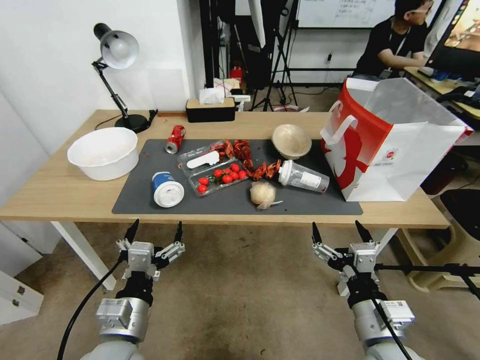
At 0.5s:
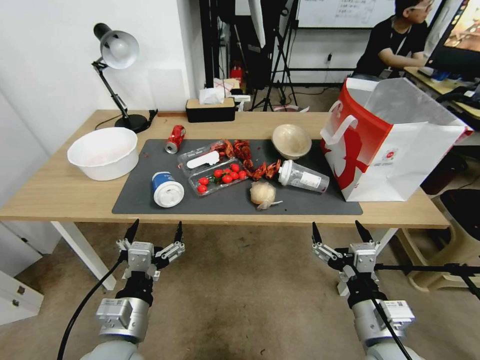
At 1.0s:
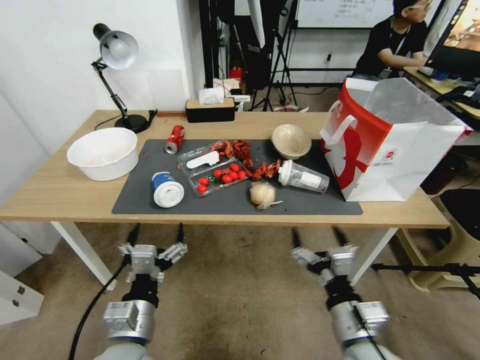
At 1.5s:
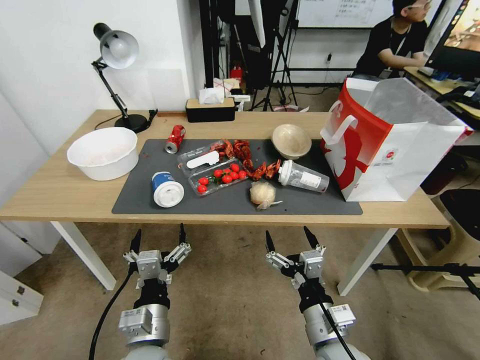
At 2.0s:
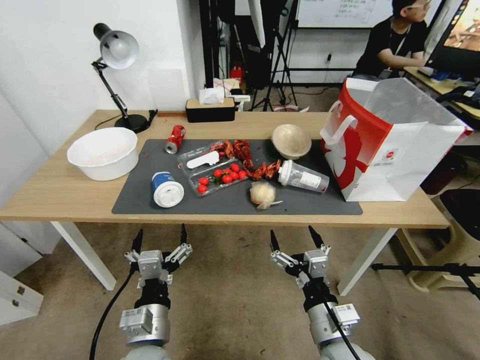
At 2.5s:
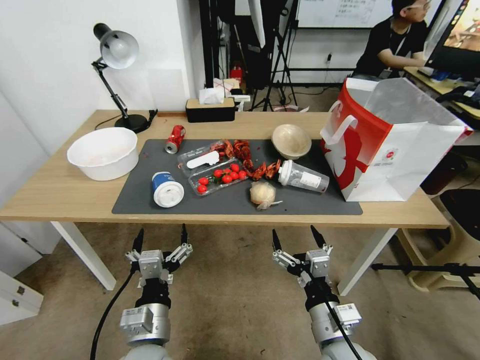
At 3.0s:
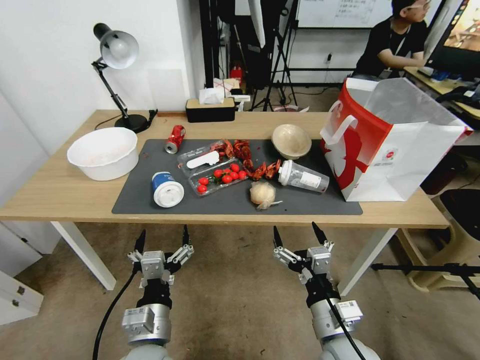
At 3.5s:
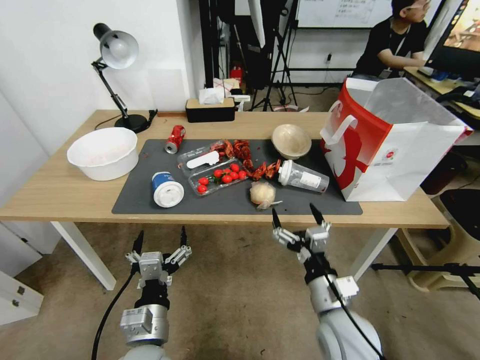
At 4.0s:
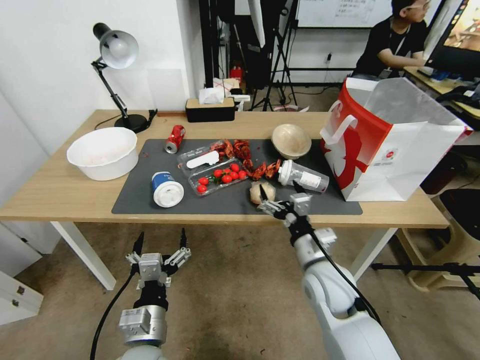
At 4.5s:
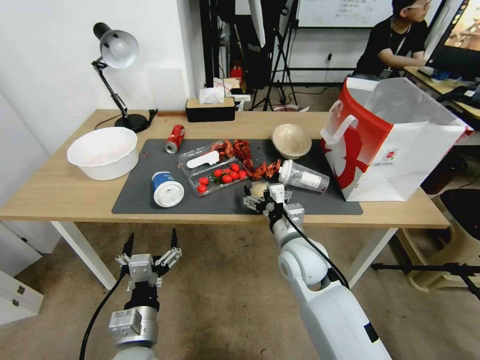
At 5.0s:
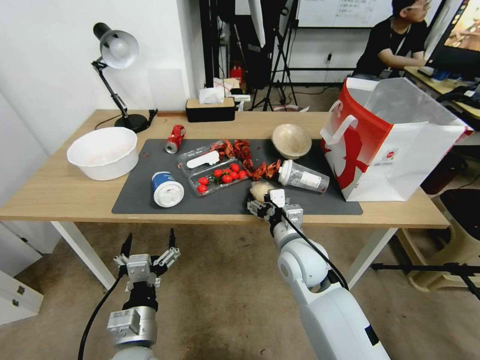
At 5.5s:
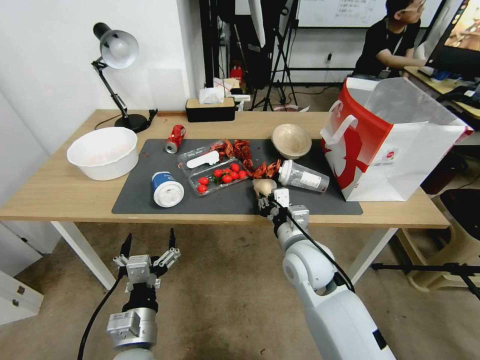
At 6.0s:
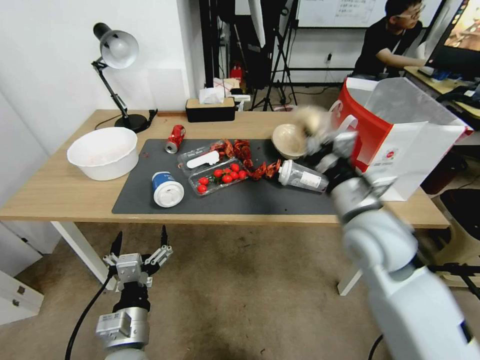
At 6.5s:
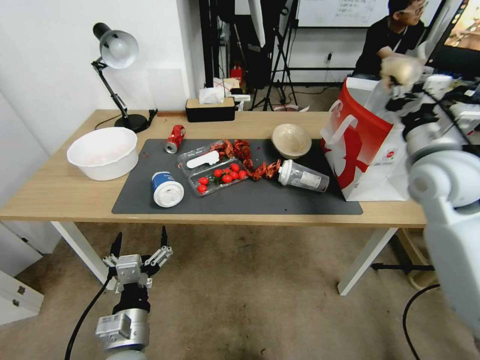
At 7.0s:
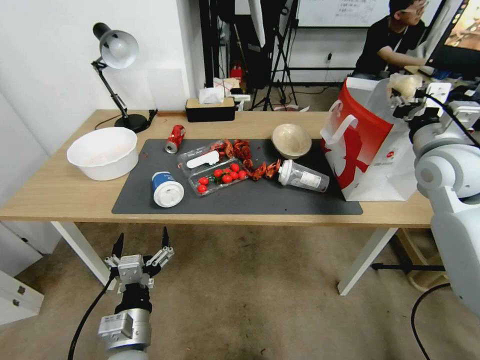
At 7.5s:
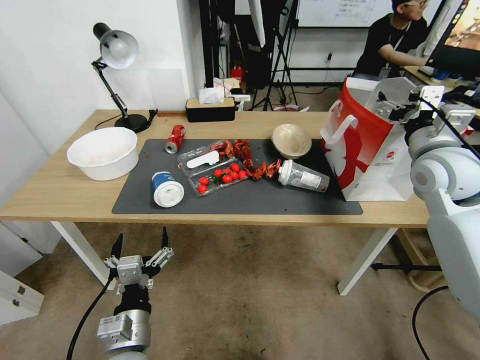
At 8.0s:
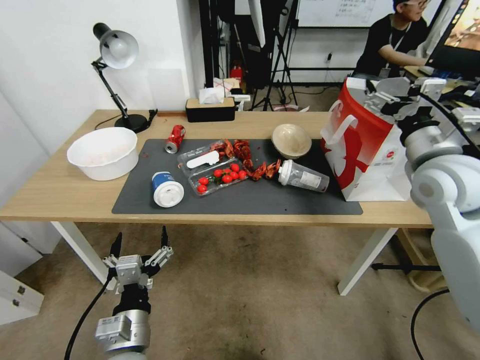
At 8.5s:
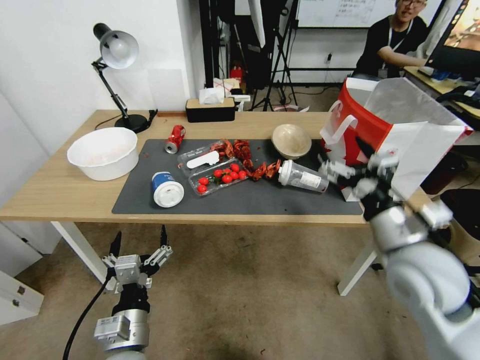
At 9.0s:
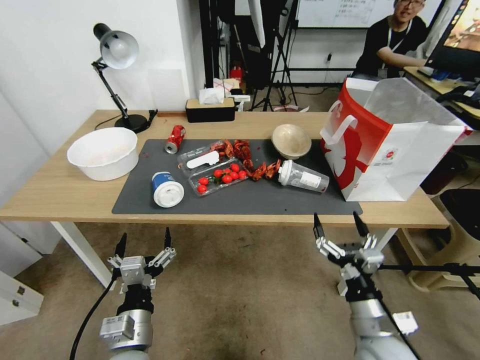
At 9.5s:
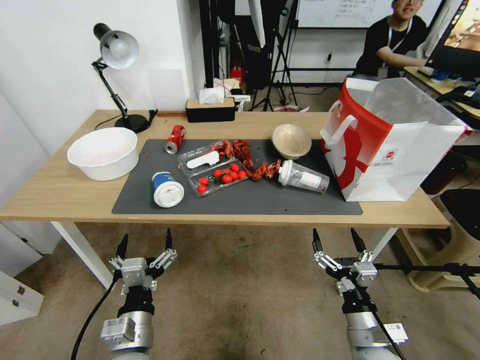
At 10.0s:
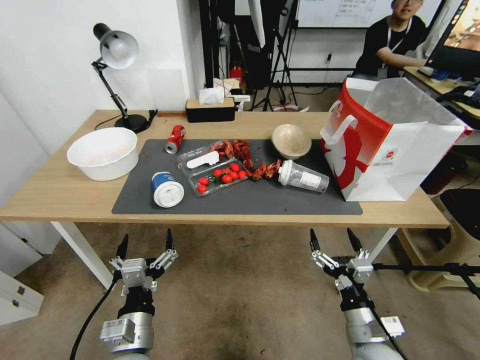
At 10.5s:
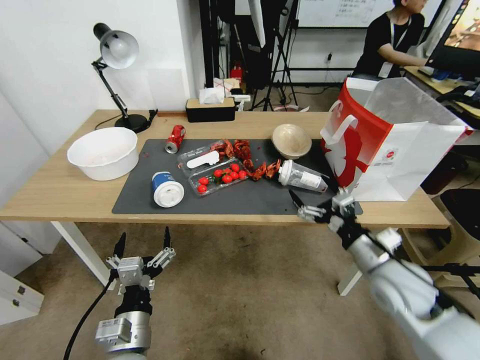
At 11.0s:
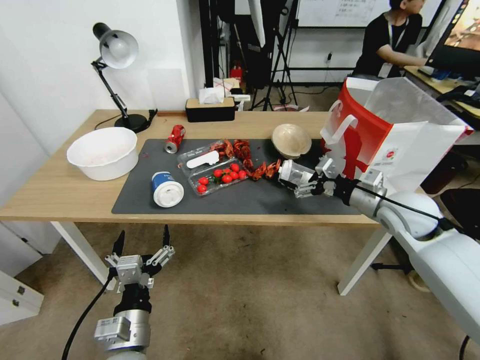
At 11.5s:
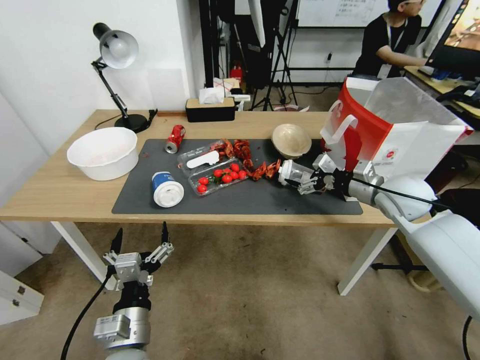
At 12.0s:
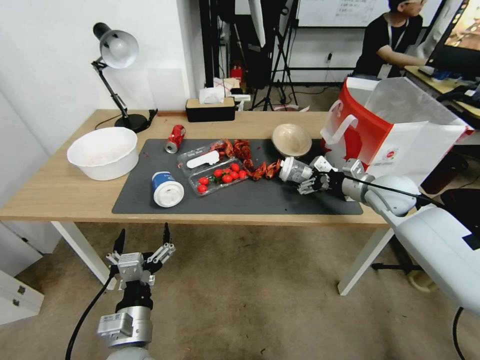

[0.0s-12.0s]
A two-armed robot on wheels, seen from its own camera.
2.0s to 4.0s: The right gripper is displaced forward by approximately 10 cm.
4.0s to 6.0s: The right gripper heads upward, covering approximately 15 cm, and closes its fingers.
6.0s to 8.0s: The right gripper moves to the right, upward and forward, about 15 cm, and opens up.
8.0s to 10.0s: The right gripper moves downward and backward, some 35 cm.
10.0s to 12.0s: The right gripper moves forward and upward, roughly 35 cm.

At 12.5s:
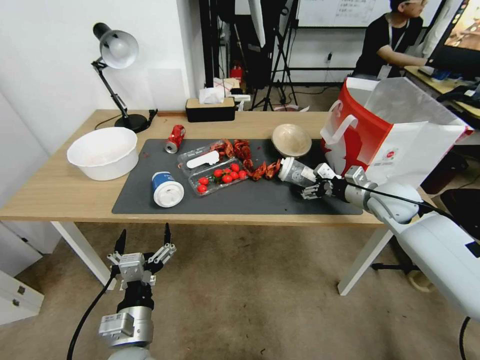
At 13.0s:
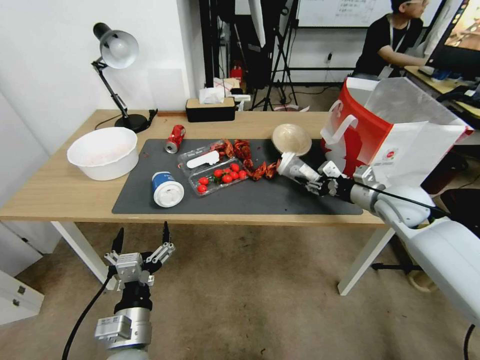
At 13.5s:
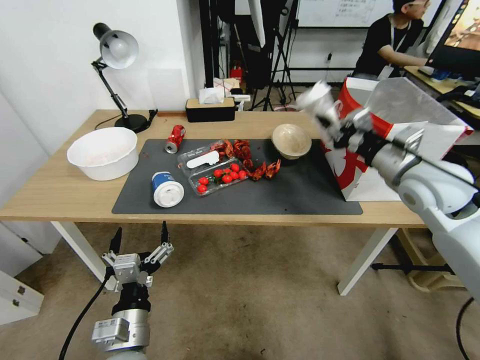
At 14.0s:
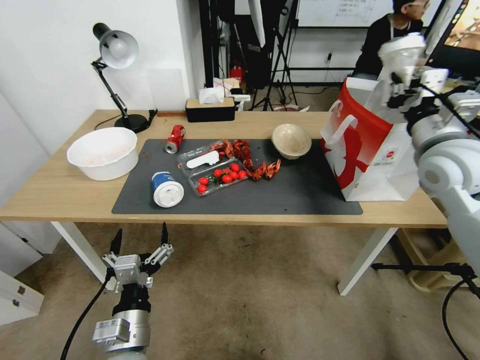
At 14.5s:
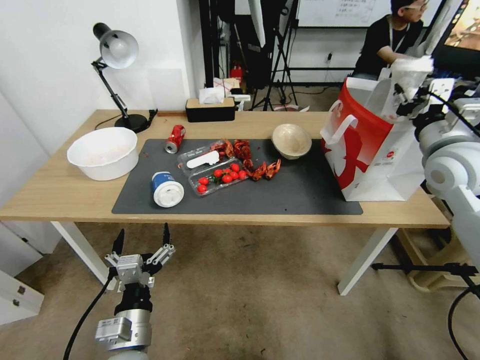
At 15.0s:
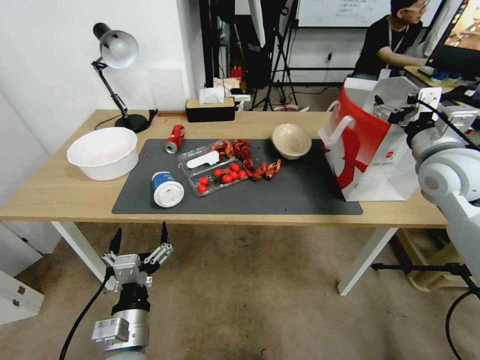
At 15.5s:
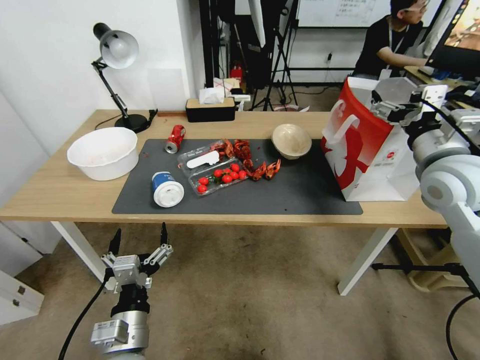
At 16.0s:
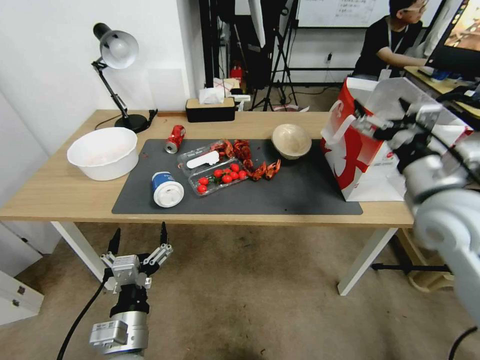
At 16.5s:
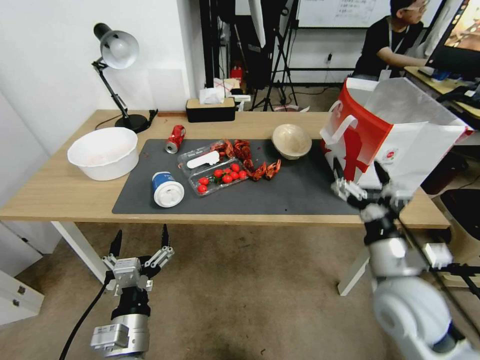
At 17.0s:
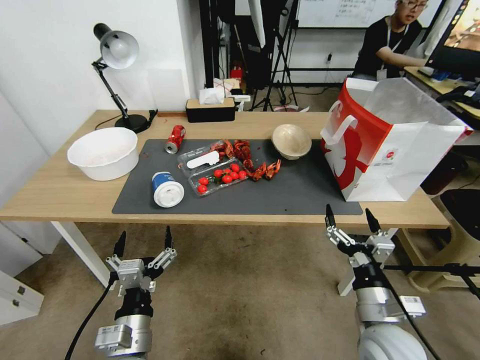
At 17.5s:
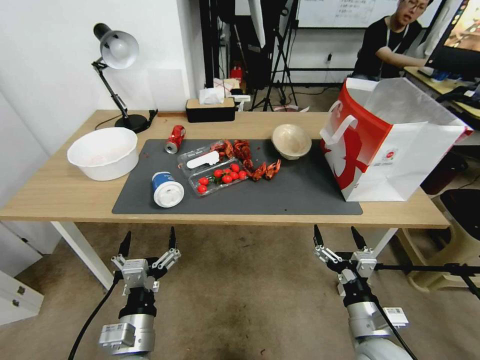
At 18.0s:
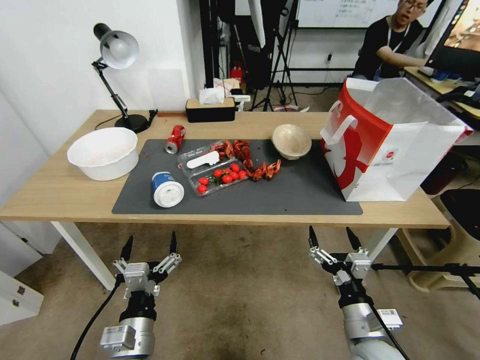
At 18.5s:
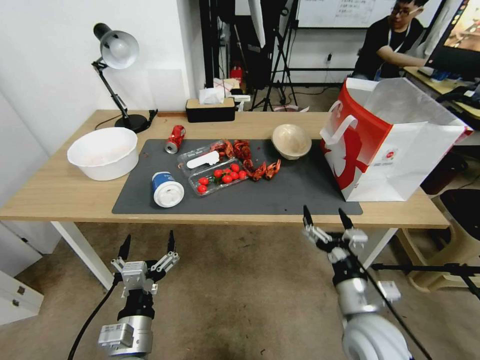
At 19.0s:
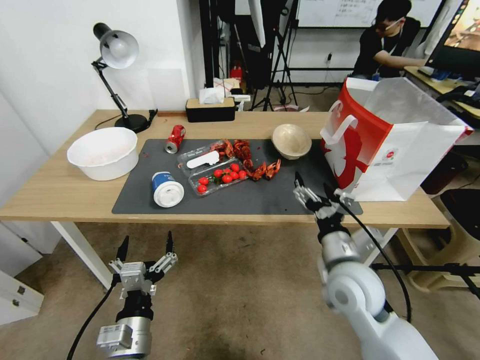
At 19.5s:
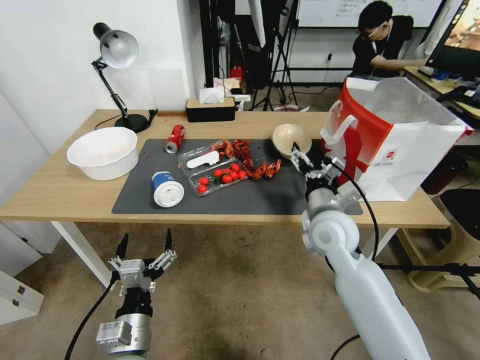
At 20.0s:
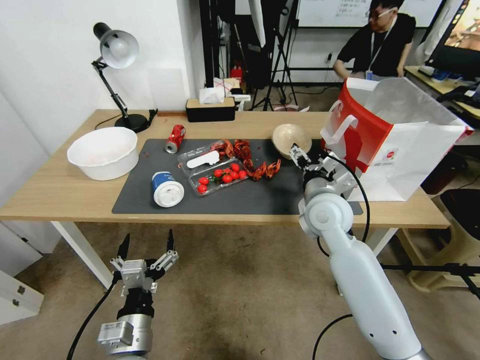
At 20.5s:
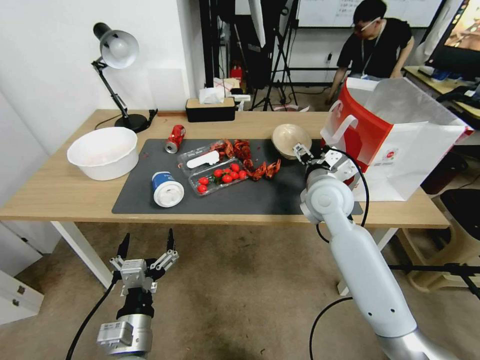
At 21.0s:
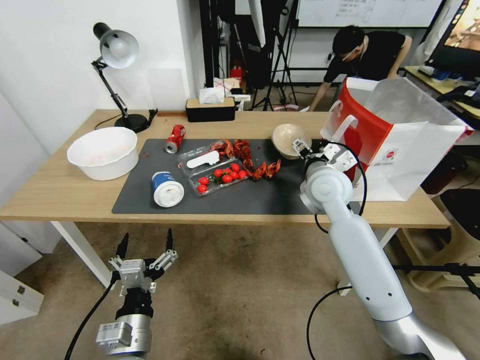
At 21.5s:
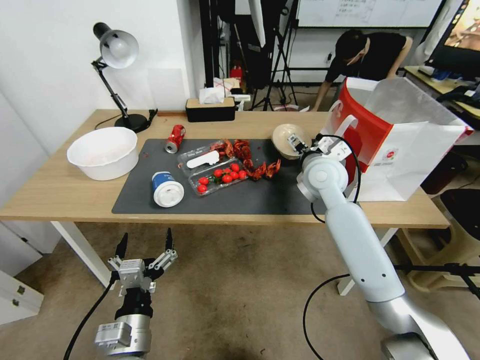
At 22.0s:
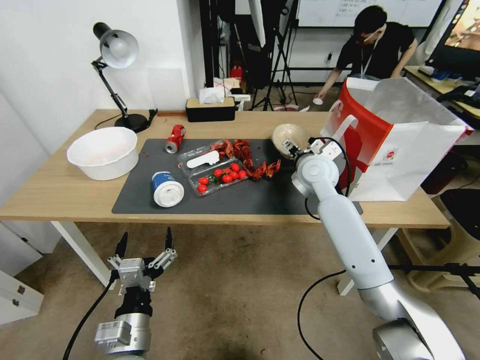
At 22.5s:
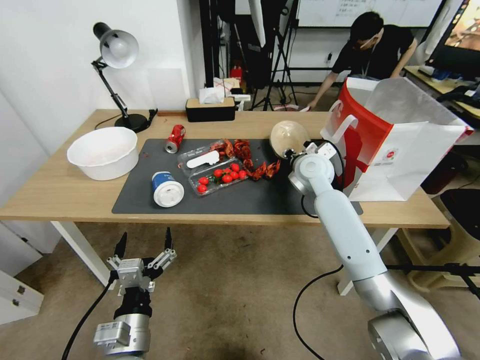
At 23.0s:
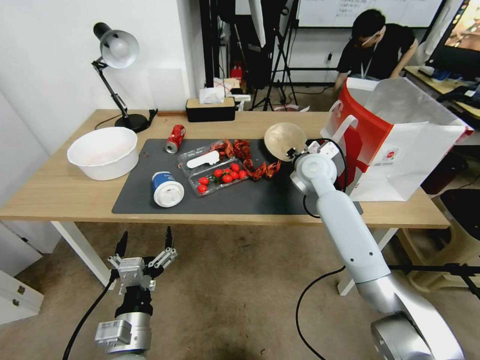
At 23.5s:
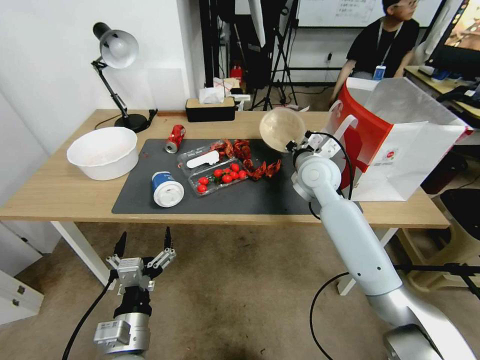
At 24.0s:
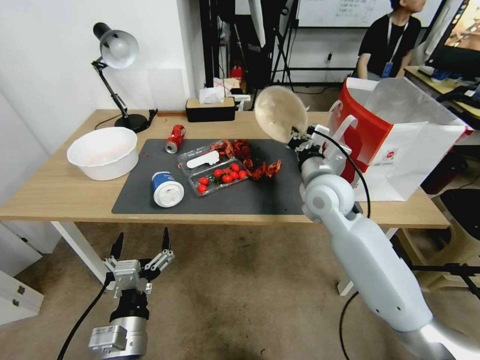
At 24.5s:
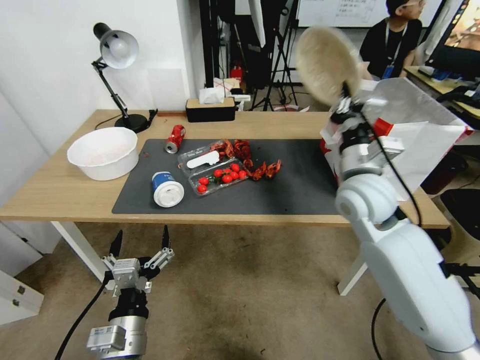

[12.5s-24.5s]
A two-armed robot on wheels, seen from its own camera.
12.5s to 14.5s: The right gripper moves upward, some 15 cm, and closes its fingers.
14.5s to 16.5s: The right gripper heads backward, downward and to the left, covering about 25 cm, and opens up.
16.5s to 18.5s: The right gripper goes some 15 cm downward and backward.
18.5s to 20.5s: The right gripper moves forward and upward, approximately 30 cm.
20.5s to 22.5s: The right gripper is displaced forward by about 10 cm, and closes.
22.5s to 24.5s: The right gripper moves backward and upward, some 15 cm, and closes up.

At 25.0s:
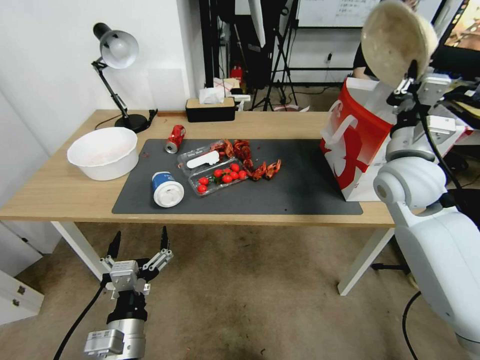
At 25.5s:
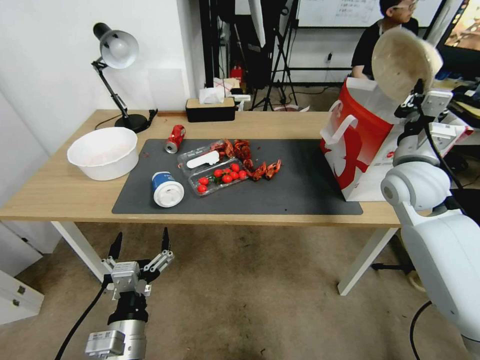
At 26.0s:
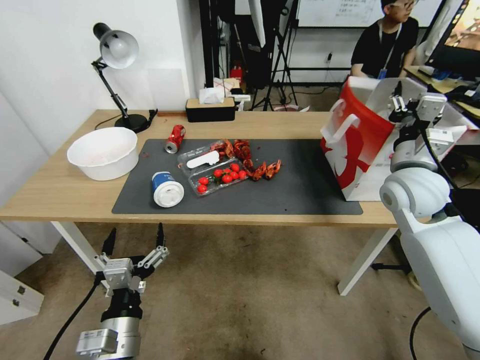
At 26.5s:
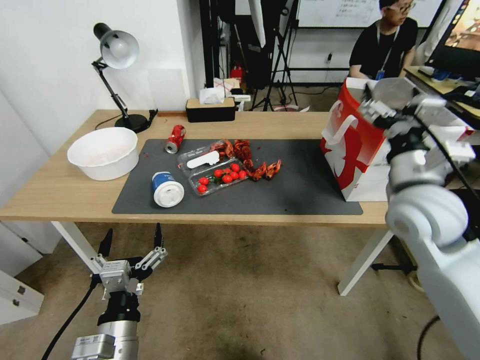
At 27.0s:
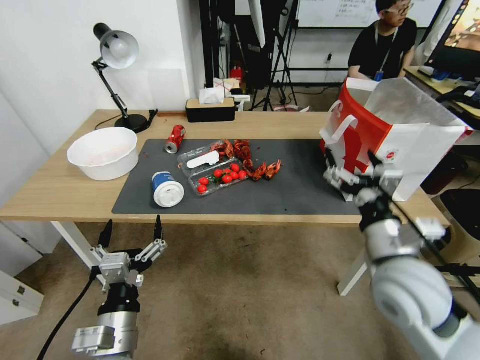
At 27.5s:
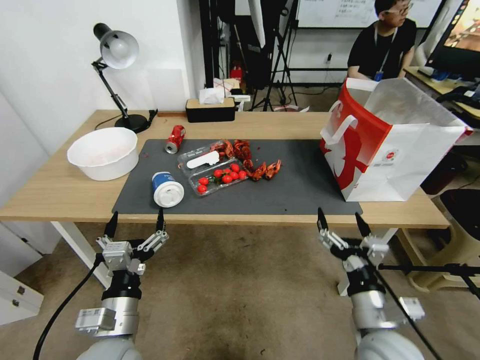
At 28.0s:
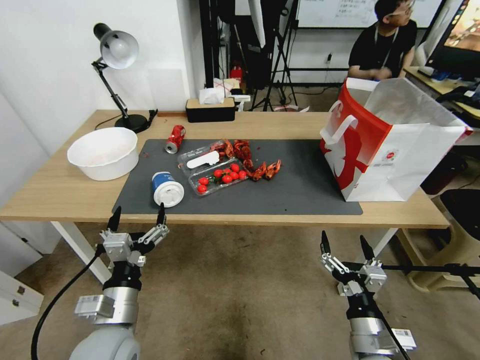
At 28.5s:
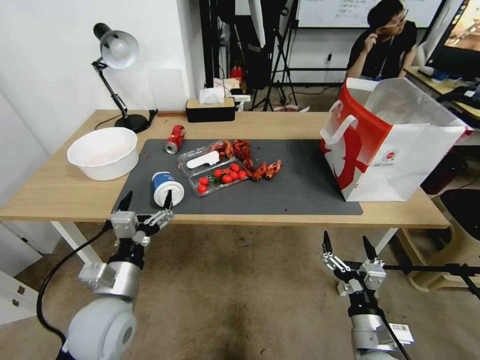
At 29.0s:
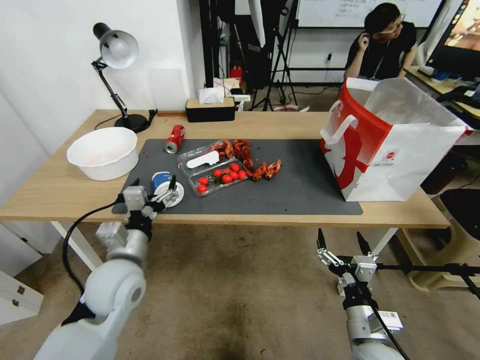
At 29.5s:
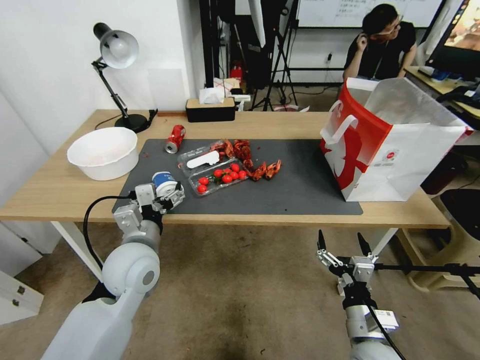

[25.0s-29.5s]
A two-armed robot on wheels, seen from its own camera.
25.0s to 27.0s: The right gripper heads backward and downward, covering approximately 15 cm, and opens.
27.0s to 29.5s: The right gripper is displaced downward and backward by some 20 cm. Meanwhile the left gripper is displaced forward by some 15 cm.
